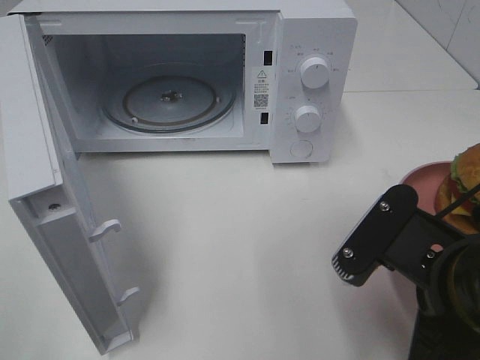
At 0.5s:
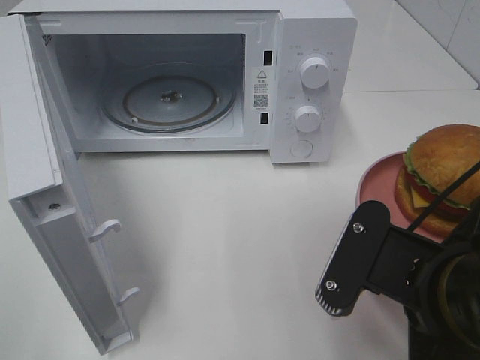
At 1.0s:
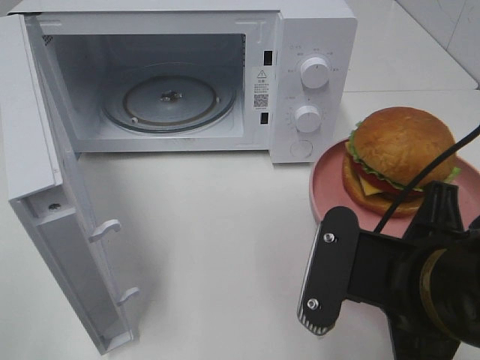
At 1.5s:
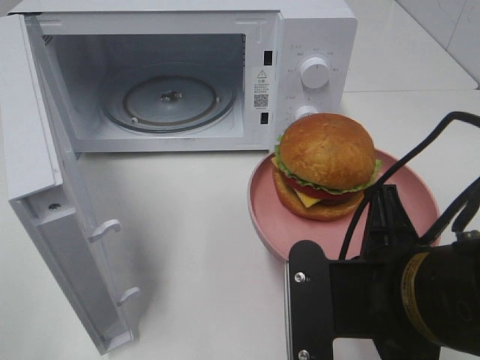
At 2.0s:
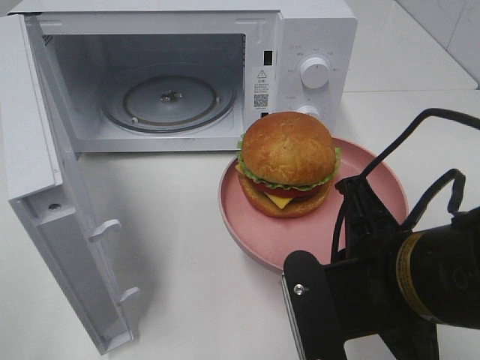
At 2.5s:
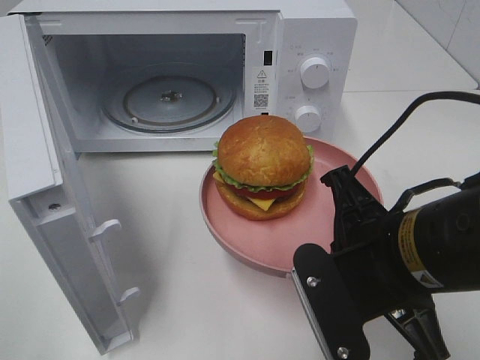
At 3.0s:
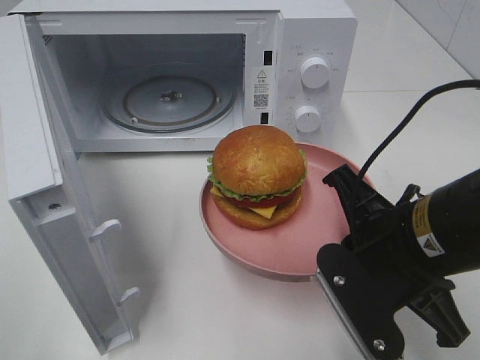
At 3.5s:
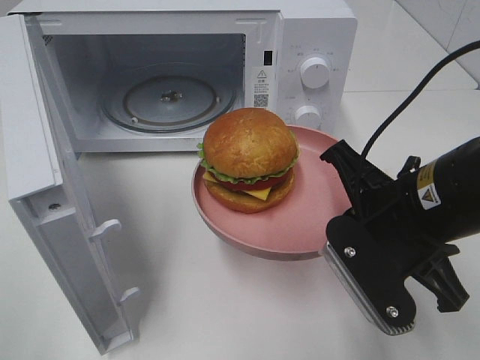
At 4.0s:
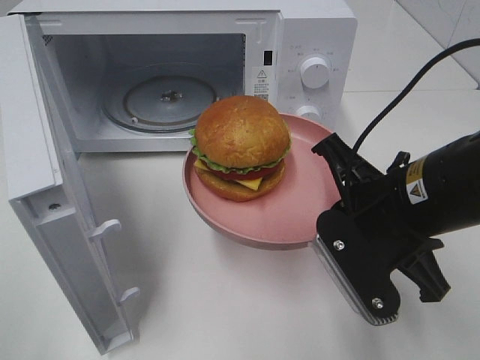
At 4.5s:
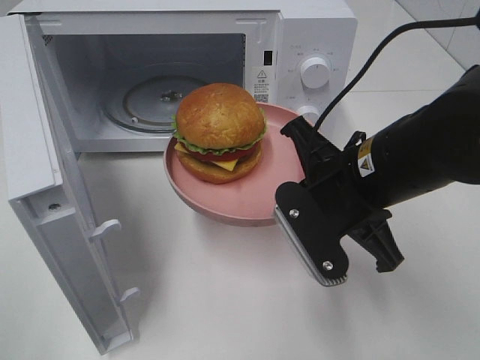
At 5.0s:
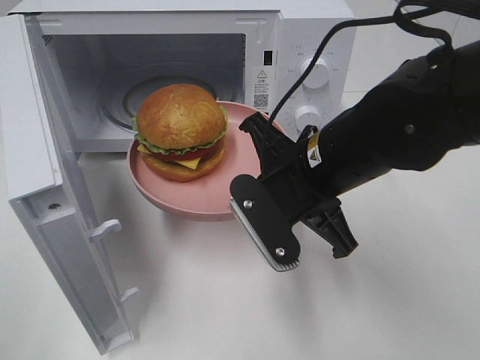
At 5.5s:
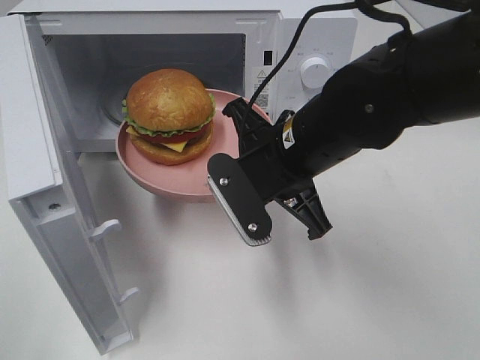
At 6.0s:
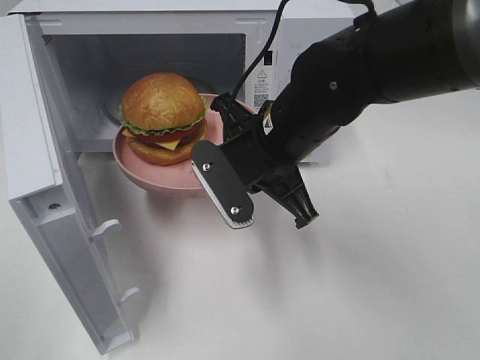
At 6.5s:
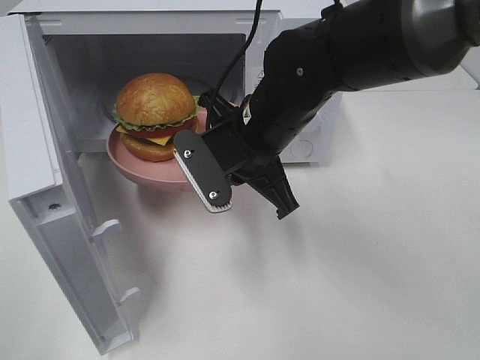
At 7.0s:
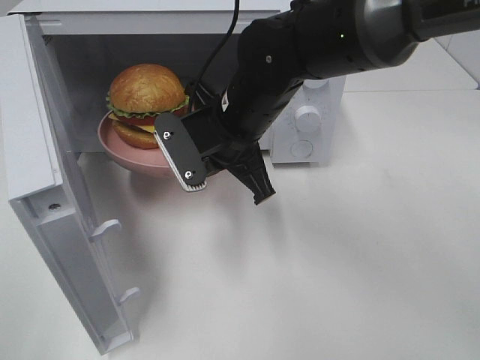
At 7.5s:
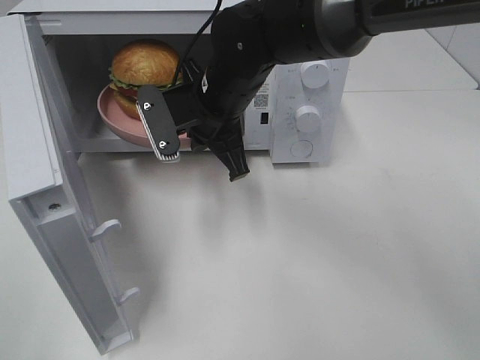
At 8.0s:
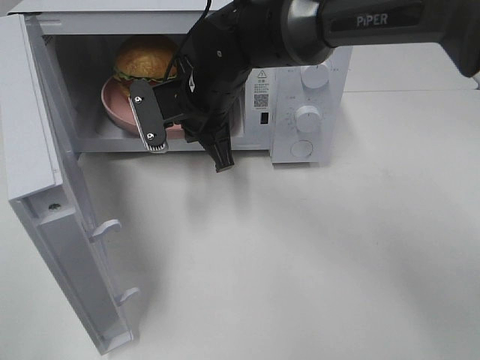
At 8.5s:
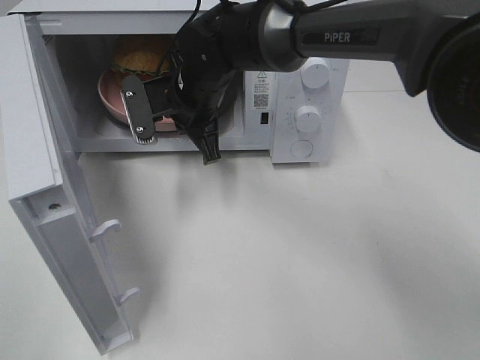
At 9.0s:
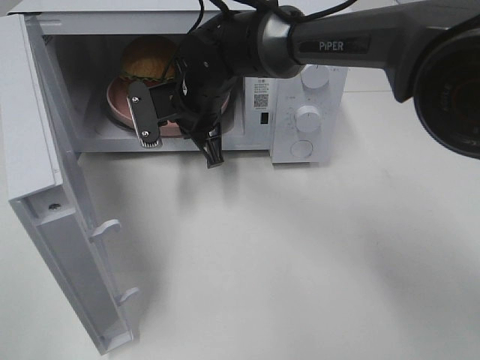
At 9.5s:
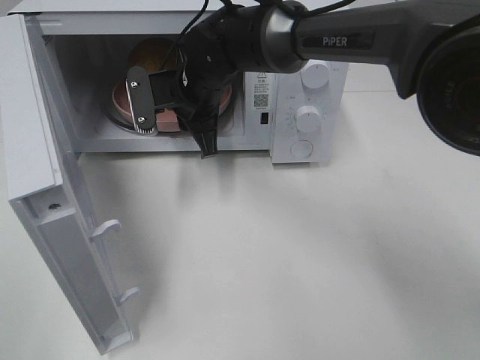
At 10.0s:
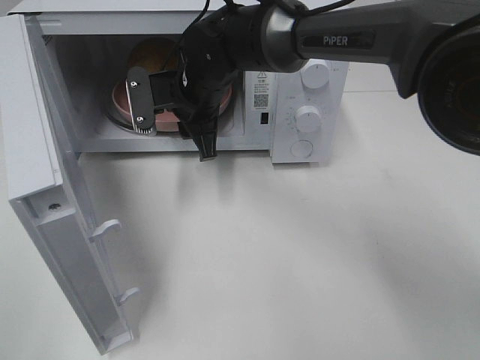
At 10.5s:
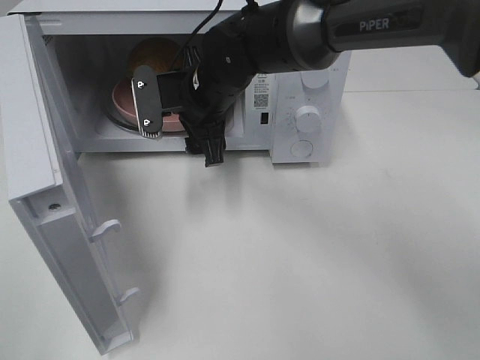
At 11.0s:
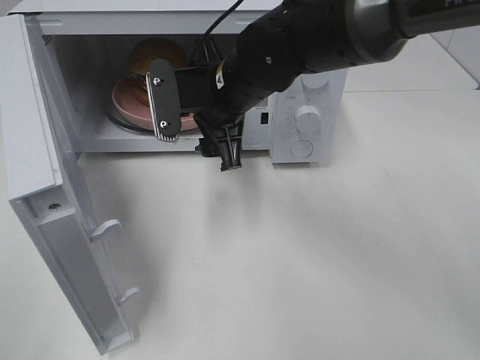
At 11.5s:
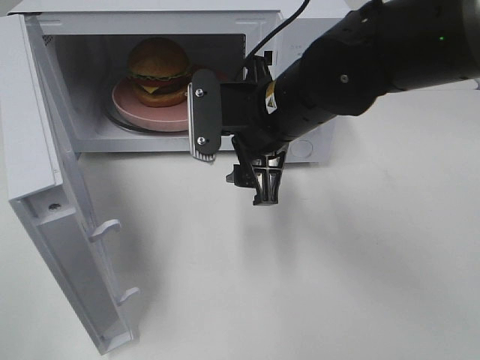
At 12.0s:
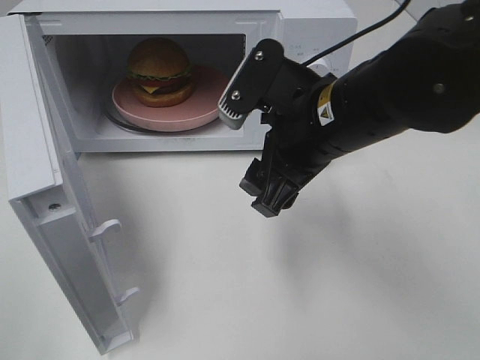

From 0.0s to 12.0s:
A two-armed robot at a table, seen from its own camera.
Task of the whole recording: Heat the burger.
Step, from 0.0s to 10.0s: Right hand: place the plate in the microwave.
From 2.0s to 4.0s: The right gripper heads forward, covering approximately 5 cm.
From 4.0s to 6.0s: The right gripper travels to the left and forward by some 15 cm.
From 6.0s to 8.0s: The right gripper goes roughly 15 cm forward and to the left.
From 8.0s to 10.0s: The right gripper opens its fingers.
From 10.0s to 12.0s: The right gripper is displaced backward and to the right by roughly 20 cm.

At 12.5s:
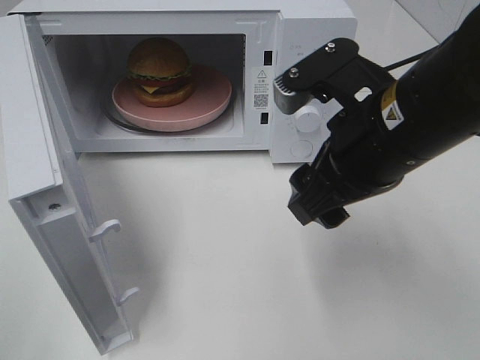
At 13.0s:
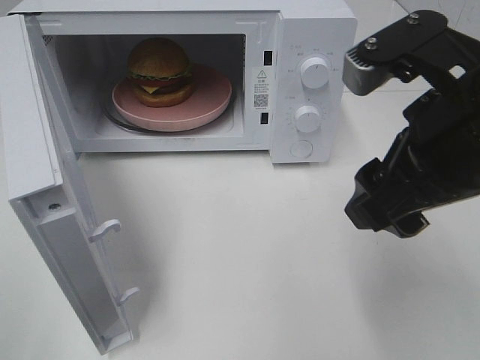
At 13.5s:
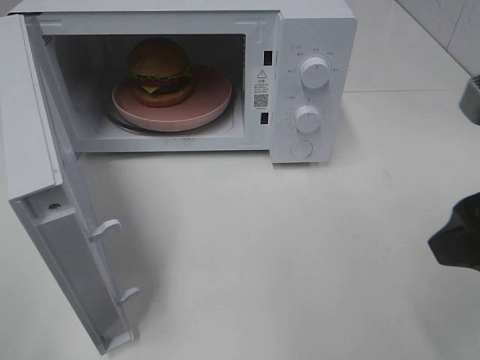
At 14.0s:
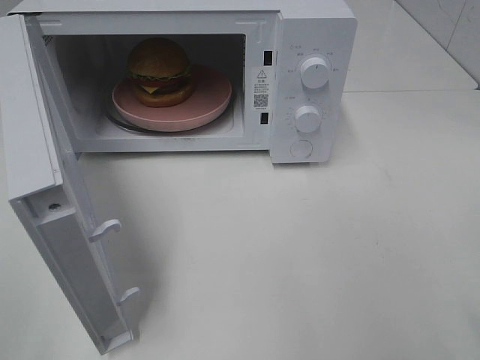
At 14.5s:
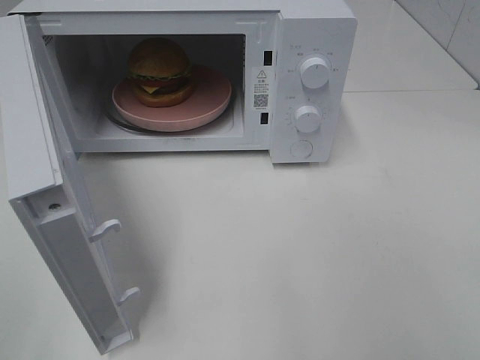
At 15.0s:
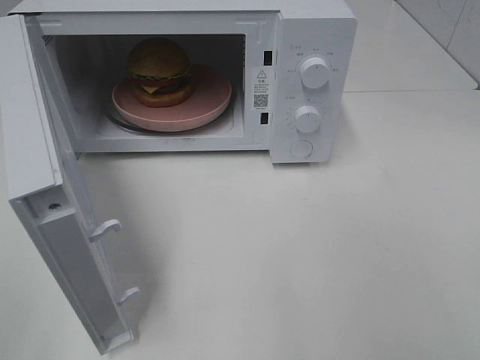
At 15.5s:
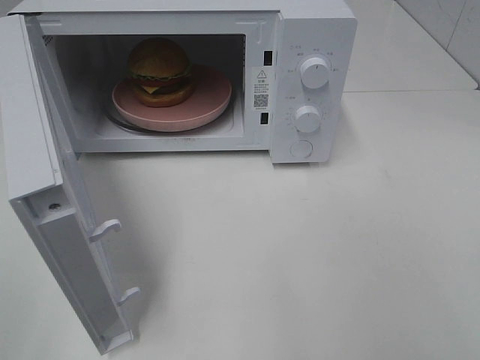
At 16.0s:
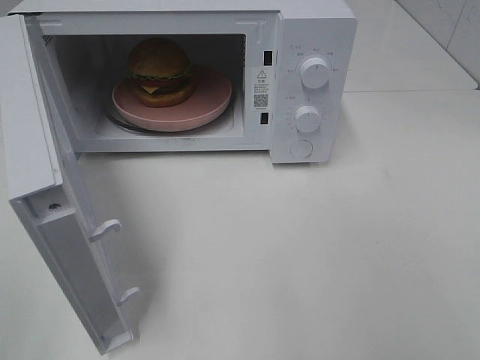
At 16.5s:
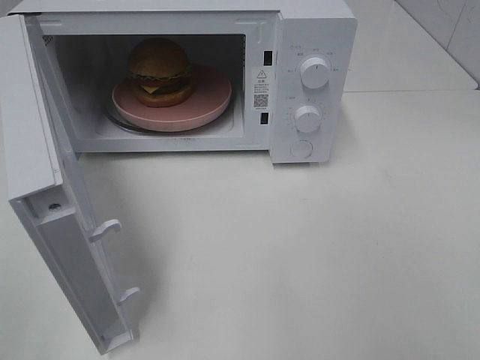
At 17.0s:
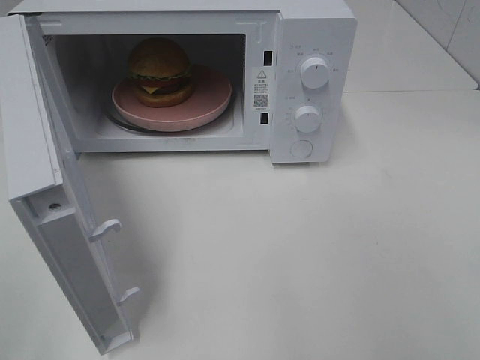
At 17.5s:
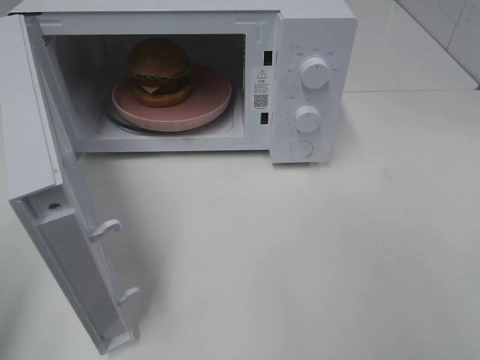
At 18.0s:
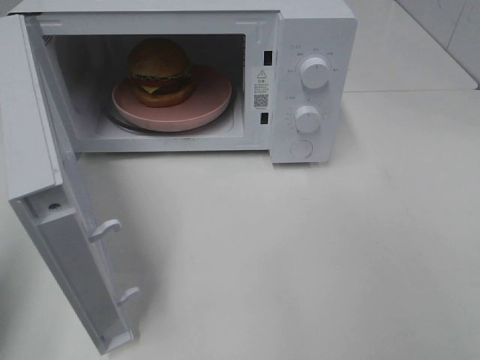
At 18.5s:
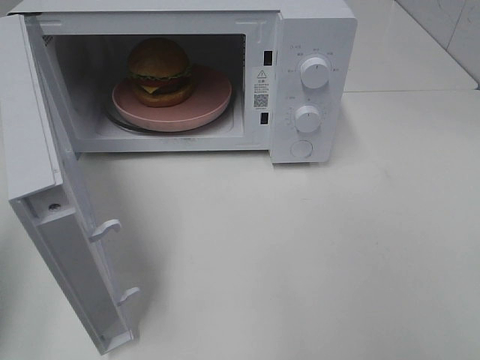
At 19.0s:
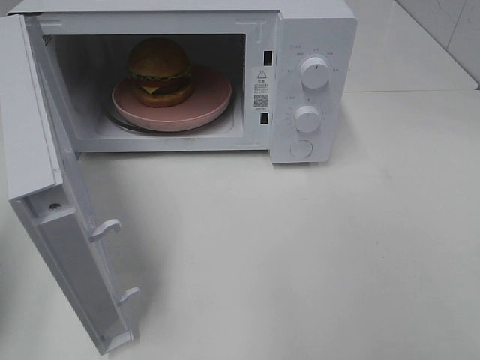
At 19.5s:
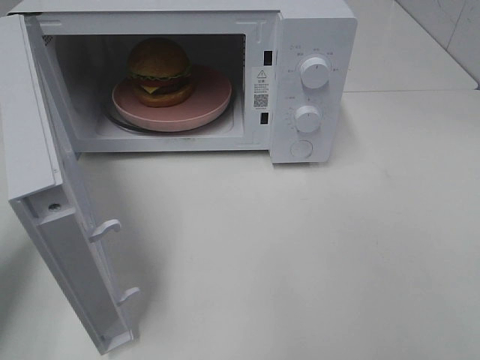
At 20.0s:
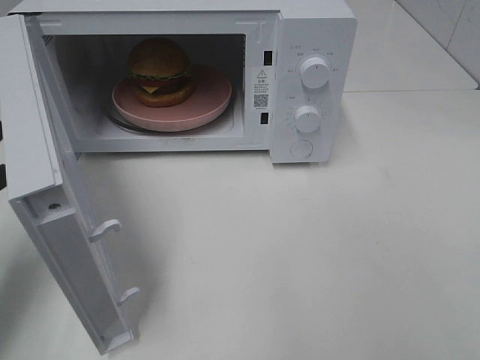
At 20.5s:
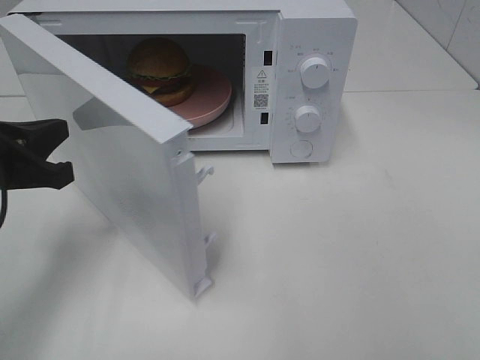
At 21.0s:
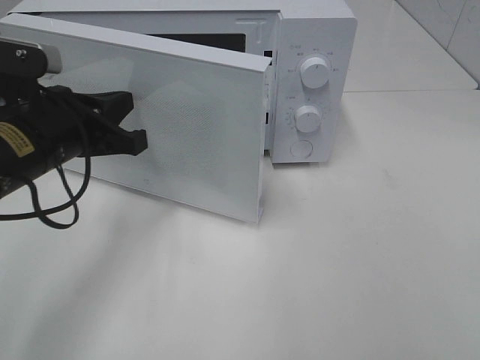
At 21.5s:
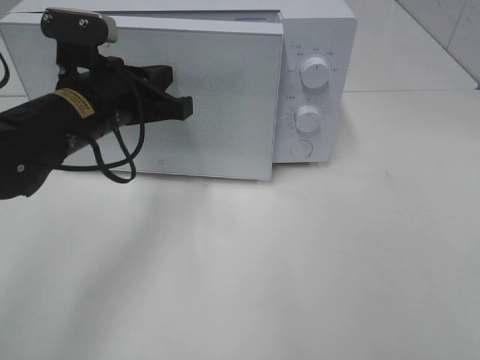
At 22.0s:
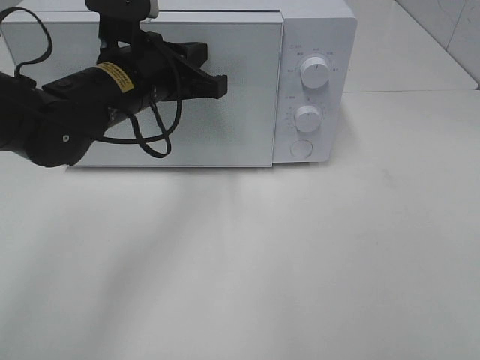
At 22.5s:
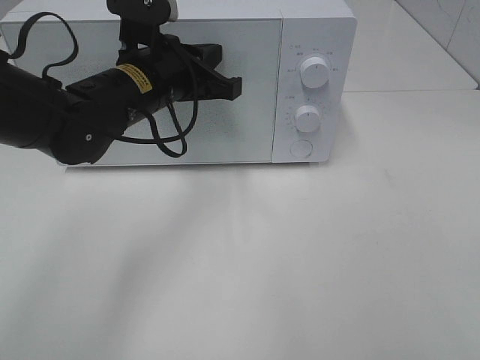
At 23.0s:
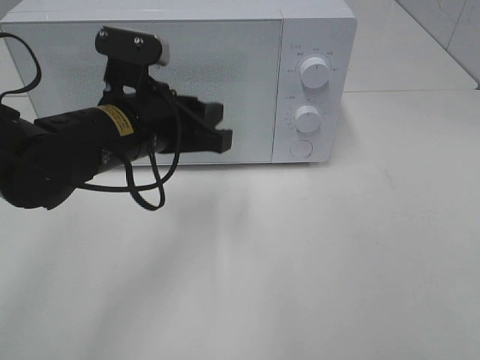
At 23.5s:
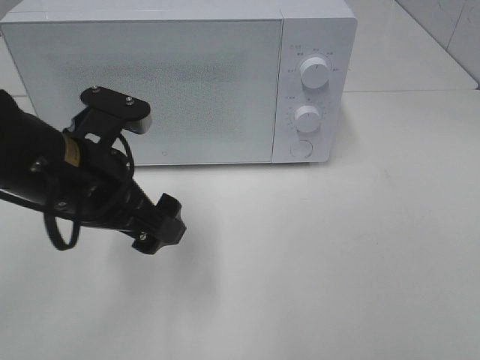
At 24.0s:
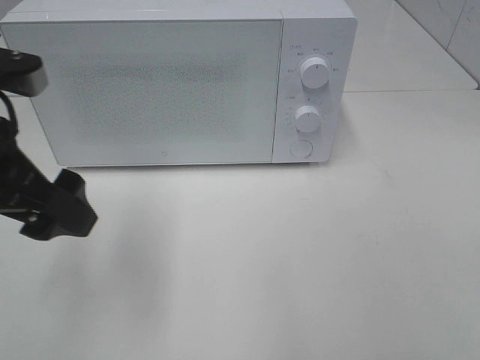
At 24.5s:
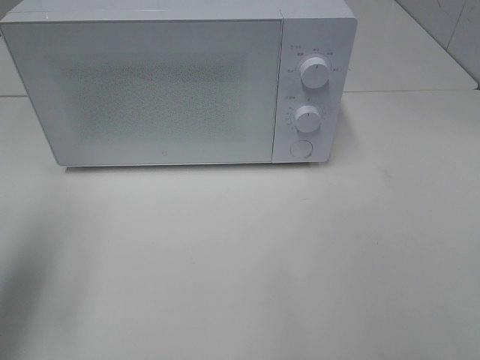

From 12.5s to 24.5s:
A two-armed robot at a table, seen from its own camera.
Task of the whole recording: Heat the burger.
Step, from 12.5s to 22.5s: Left hand: close the microwave door.
From 12.5s to 14.5s: The right gripper is displaced backward and to the right by about 25 cm.
From 16.5s to 18.5s: The left gripper moves forward, approximately 15 cm, and closes.
From 18.5s to 20.5s: The left gripper heads forward, to the right and downward, covering roughly 15 cm.
From 20.5s to 22.5s: The left gripper is displaced to the right and forward by approximately 20 cm.
From 22.5s to 24.5s: The left gripper travels to the left, backward and upward by roughly 30 cm, and opens its fingers.

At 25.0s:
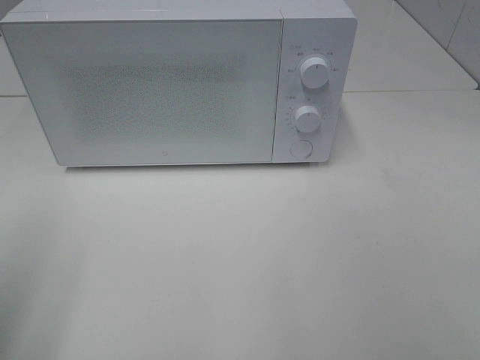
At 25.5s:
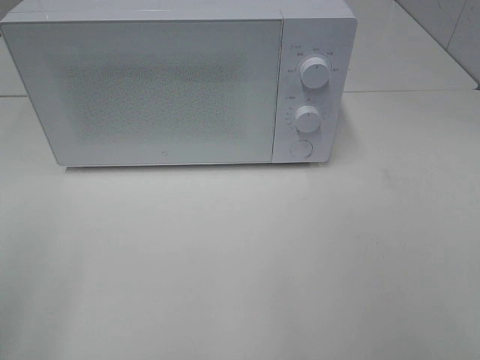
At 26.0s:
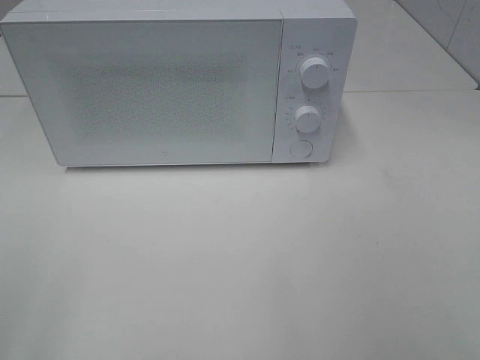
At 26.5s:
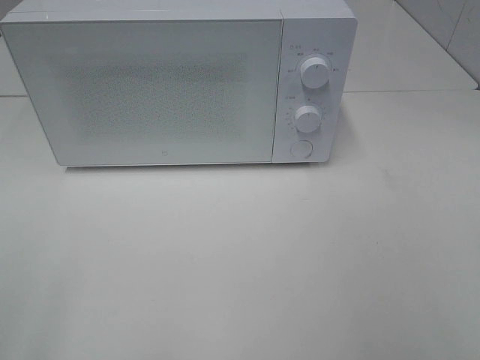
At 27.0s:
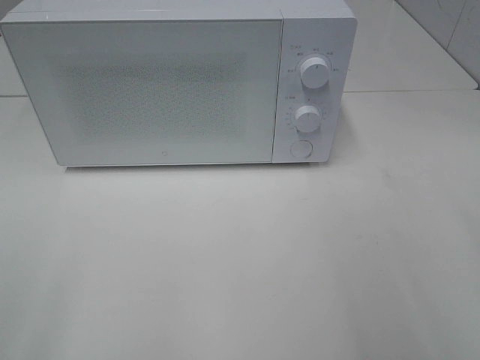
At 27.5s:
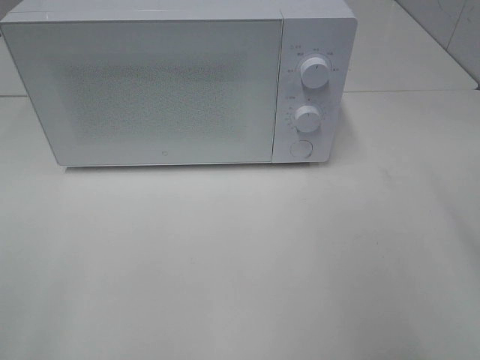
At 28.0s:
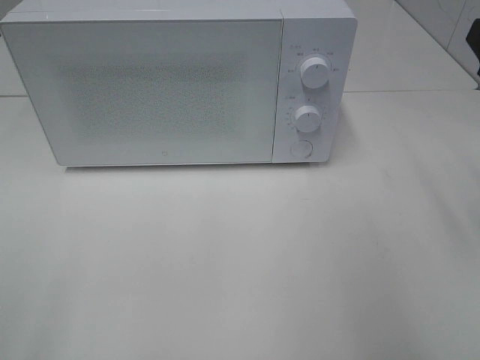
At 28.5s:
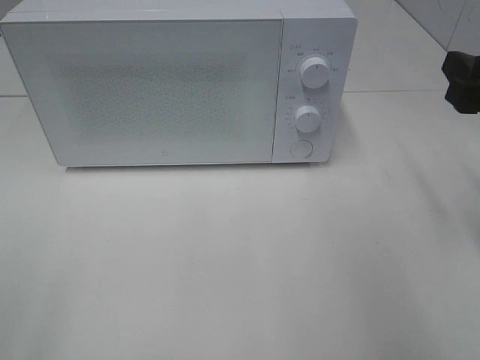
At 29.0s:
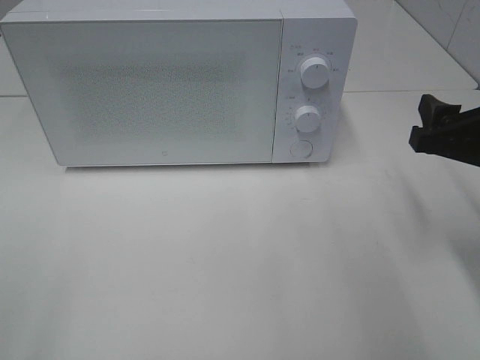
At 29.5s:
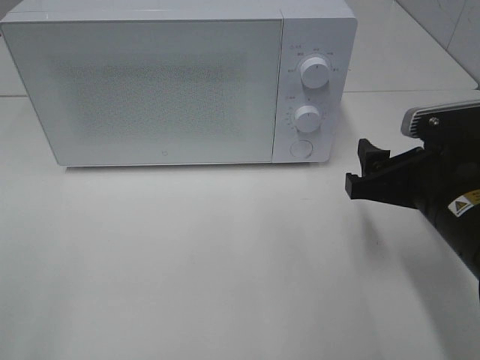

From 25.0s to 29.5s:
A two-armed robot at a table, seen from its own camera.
Task of the whole recording: Heat the burger.
From 27.0s to 29.5s: The right gripper shifts about 20 cm downward, forward and to the left.
